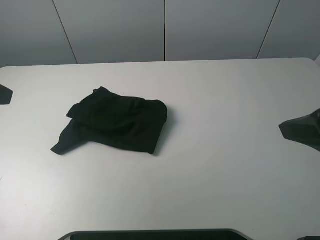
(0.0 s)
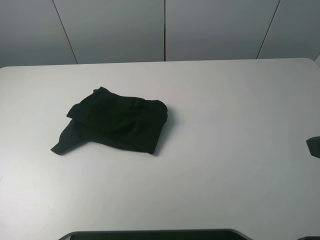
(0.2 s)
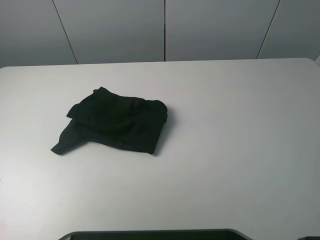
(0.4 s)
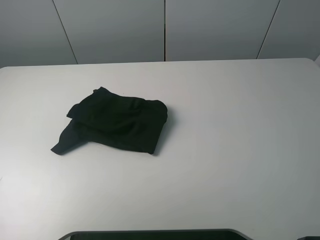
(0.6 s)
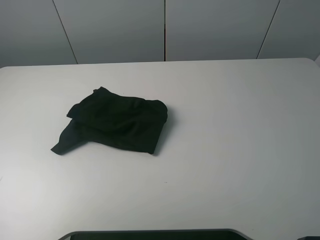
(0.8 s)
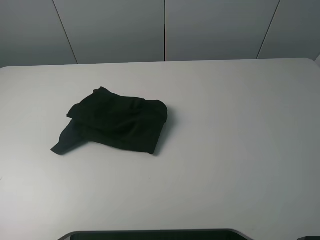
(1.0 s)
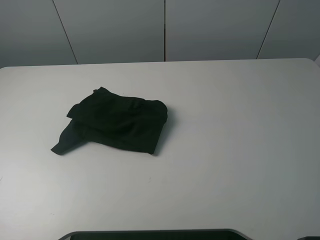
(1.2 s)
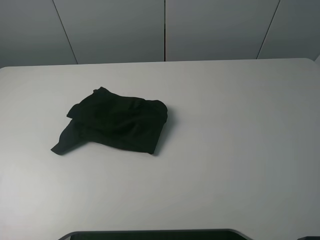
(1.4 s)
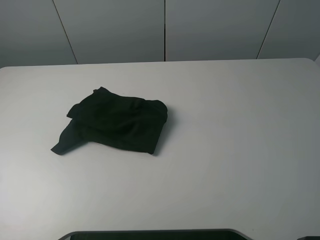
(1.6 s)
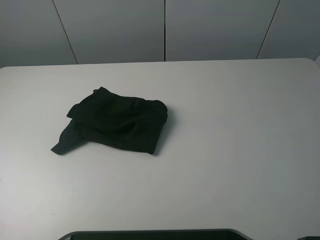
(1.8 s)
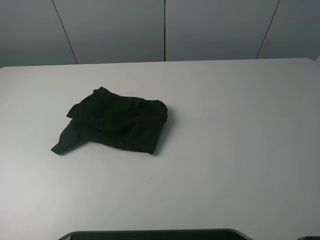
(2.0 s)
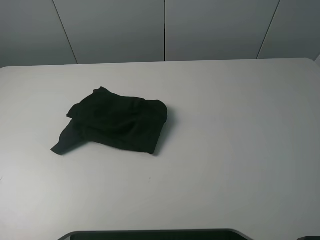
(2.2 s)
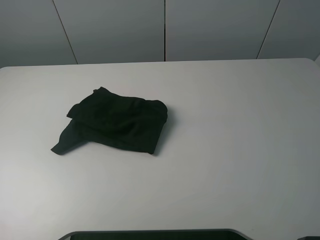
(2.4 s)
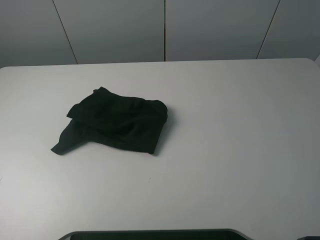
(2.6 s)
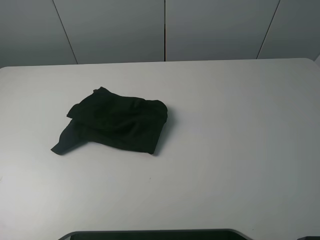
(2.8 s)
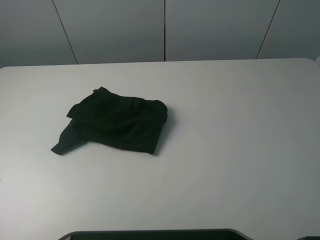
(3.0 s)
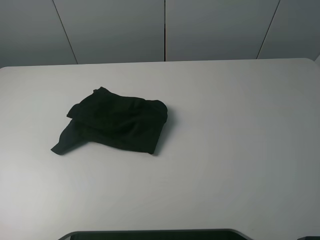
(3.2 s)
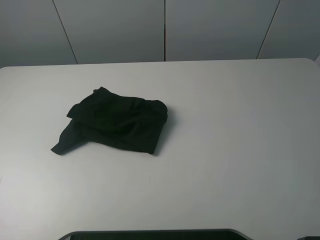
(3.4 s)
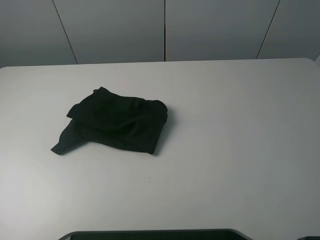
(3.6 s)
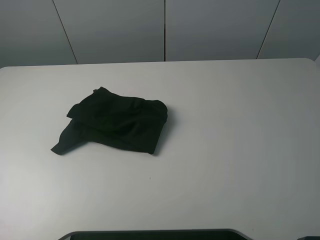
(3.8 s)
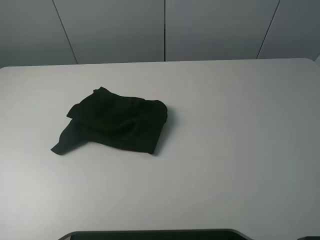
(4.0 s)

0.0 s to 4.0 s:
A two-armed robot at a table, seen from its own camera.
Task of the whole recording: fold the clothes on the table.
0.0 to 1.4 s: The left gripper is displaced backward by about 15 cm. Meanwhile the right gripper heads backward and to the right, covering approximately 10 cm.
